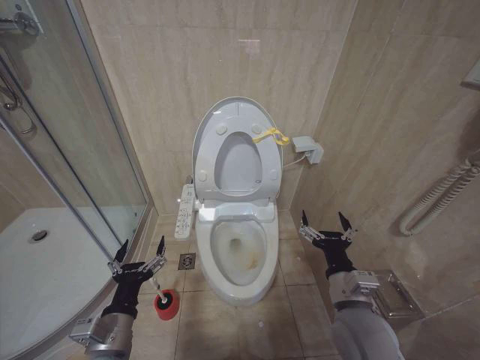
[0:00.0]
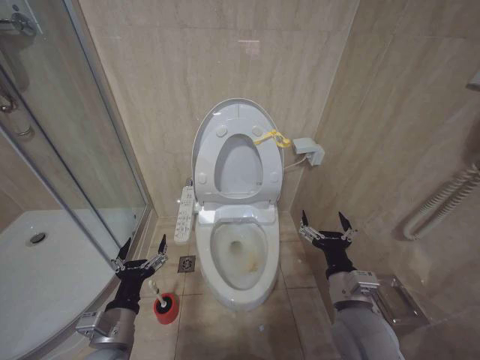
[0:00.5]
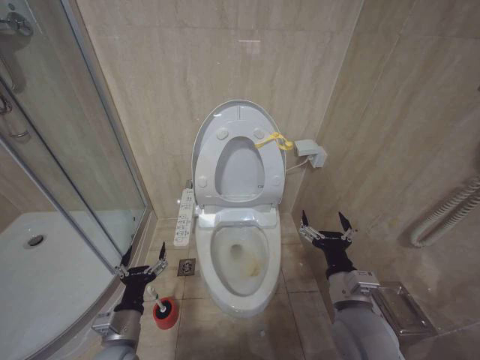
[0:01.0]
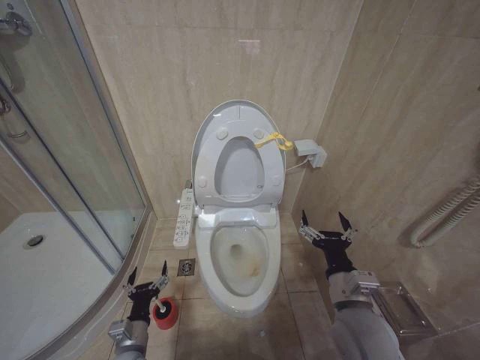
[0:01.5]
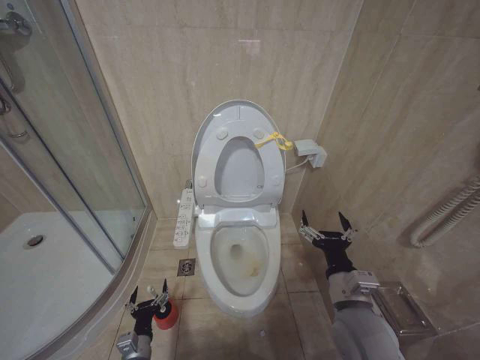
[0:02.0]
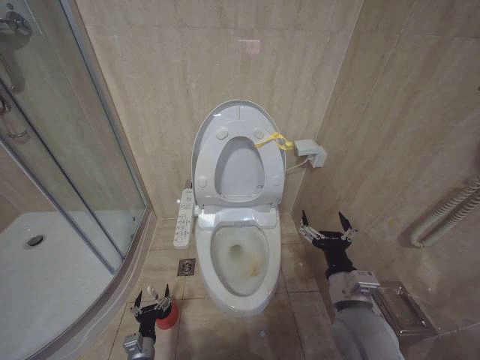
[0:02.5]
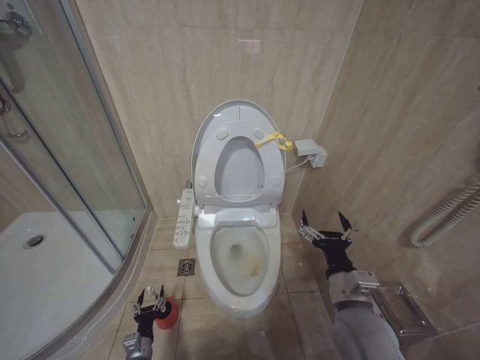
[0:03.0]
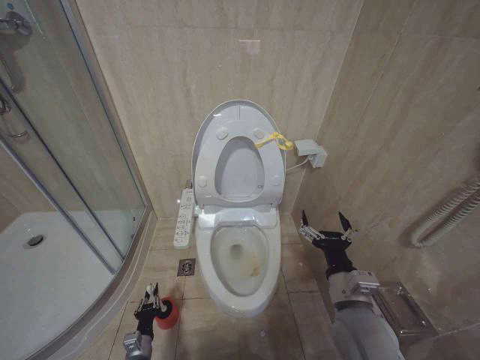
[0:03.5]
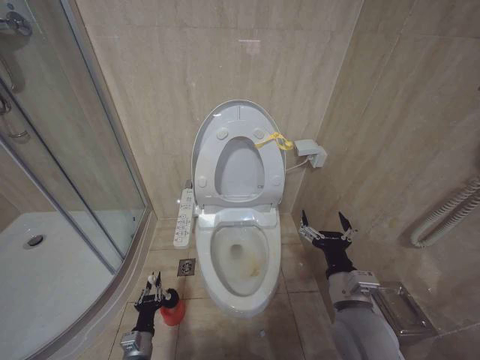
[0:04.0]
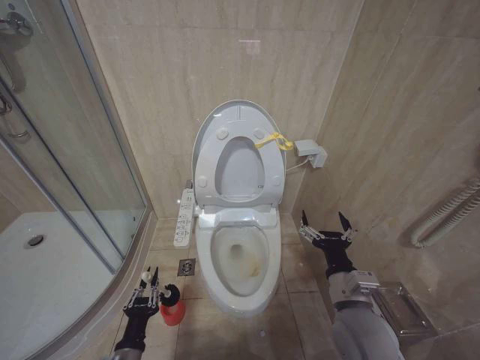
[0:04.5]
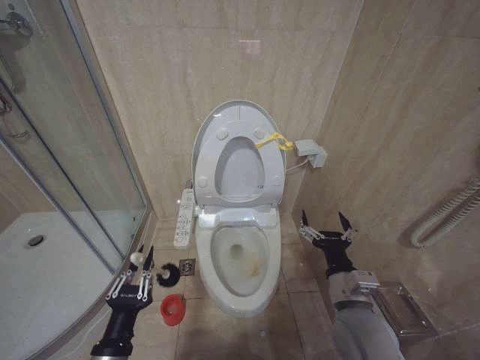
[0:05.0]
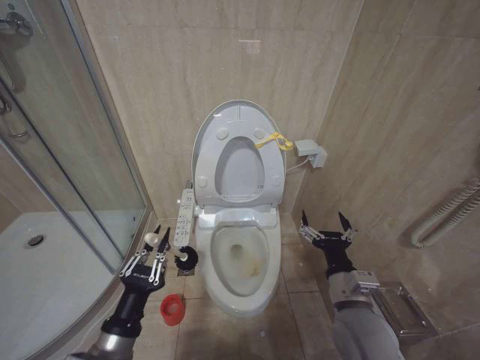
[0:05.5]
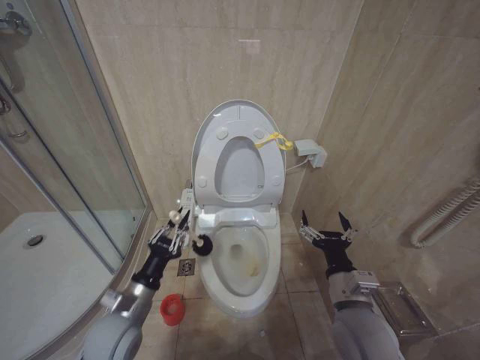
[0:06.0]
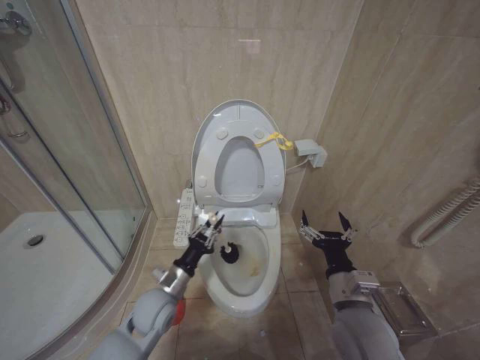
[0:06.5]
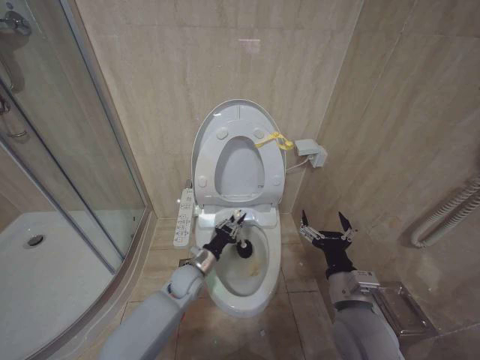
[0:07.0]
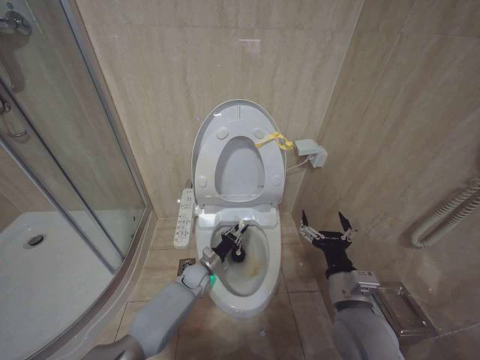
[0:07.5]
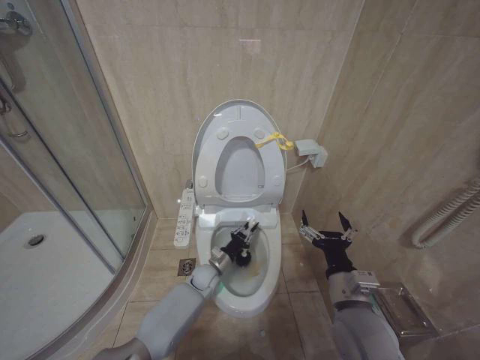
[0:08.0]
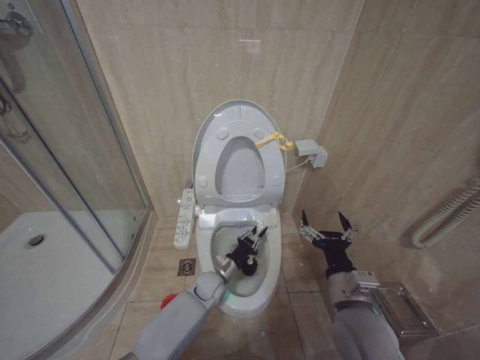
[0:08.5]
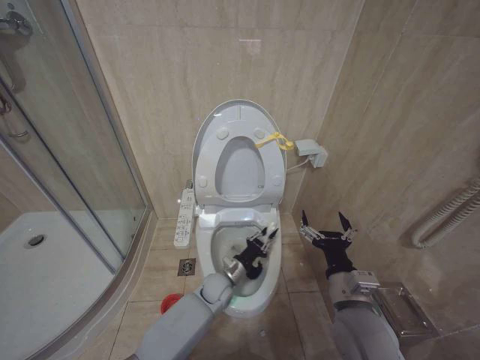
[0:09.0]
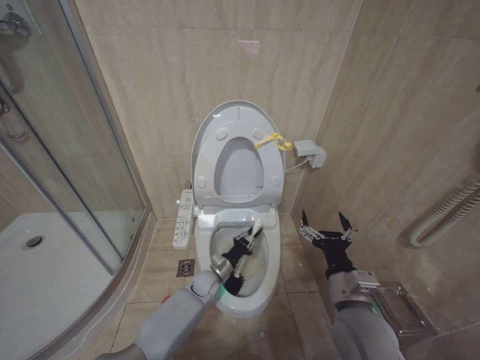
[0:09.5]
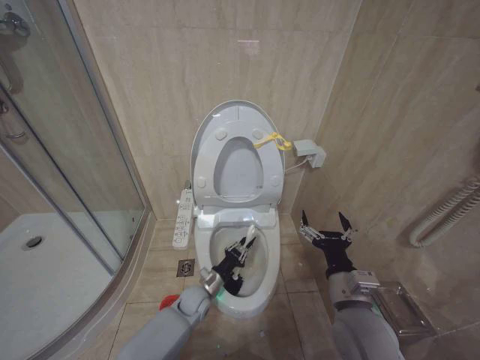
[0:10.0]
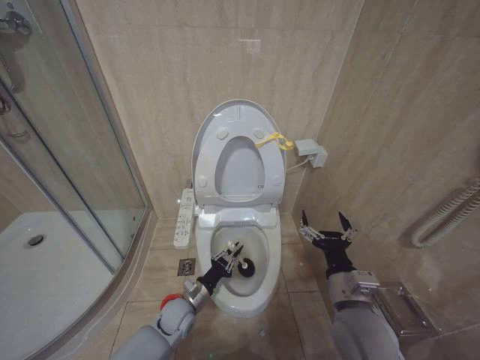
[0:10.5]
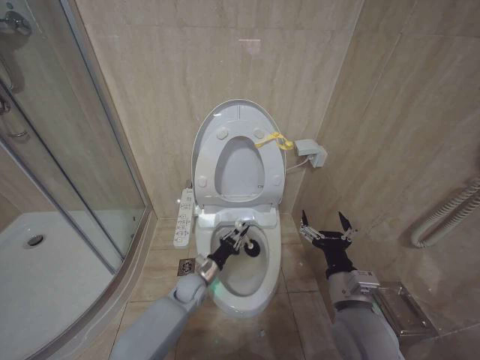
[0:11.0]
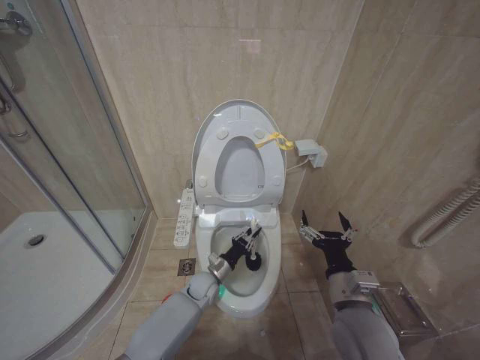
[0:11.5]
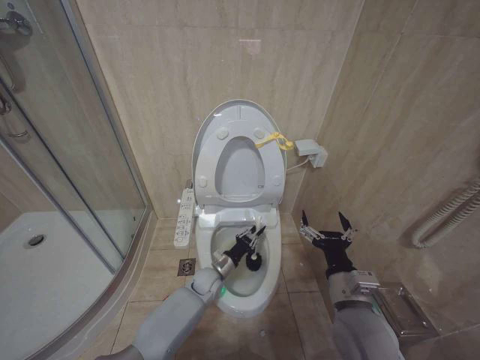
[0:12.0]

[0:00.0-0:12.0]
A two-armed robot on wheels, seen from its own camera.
Task of the whole recording: Open the toilet lid, clean the toilet bowl with a toilet brush, close the toilet lid, and flush.
0:00.0 to 0:02.0: The left gripper is displaced downward by roughly 20 cm.
0:02.0 to 0:04.0: The left gripper closes its fingers.
0:04.0 to 0:06.0: The left gripper shifts about 25 cm upward.
0:06.0 to 0:08.0: The left gripper is displaced forward, downward and to the right by roughly 30 cm.
0:08.0 to 0:10.0: The left gripper shifts some 5 cm backward.

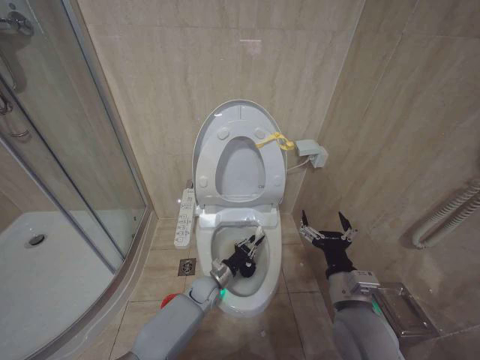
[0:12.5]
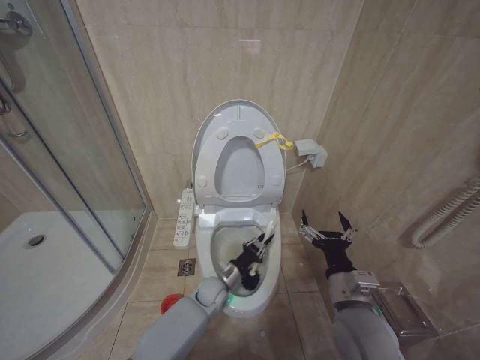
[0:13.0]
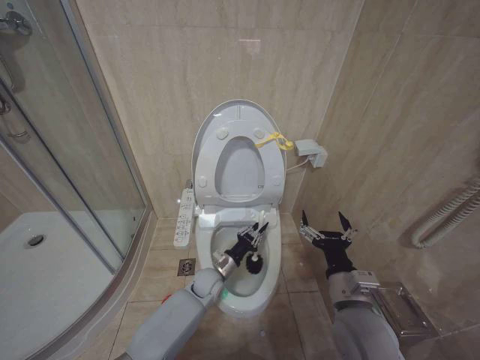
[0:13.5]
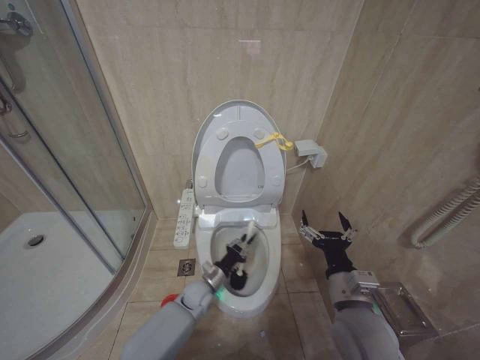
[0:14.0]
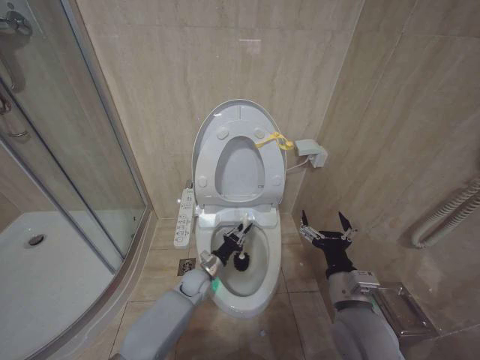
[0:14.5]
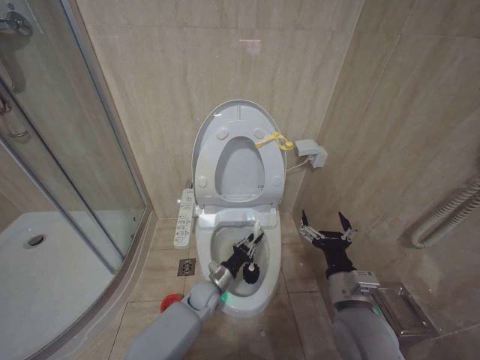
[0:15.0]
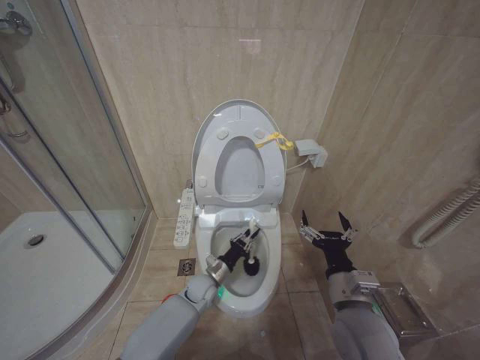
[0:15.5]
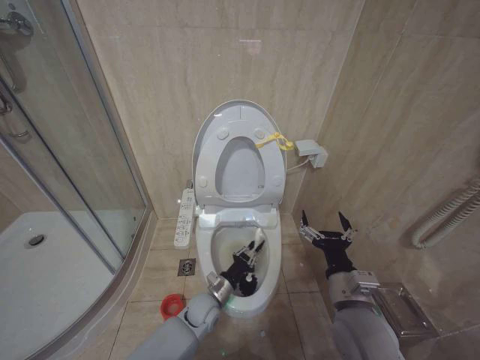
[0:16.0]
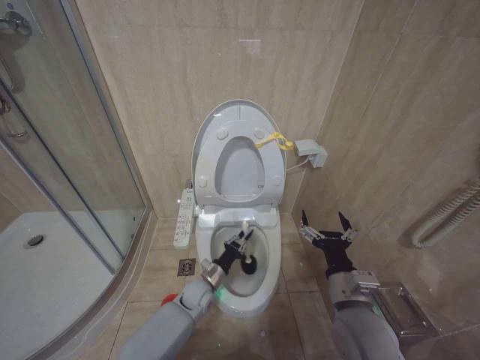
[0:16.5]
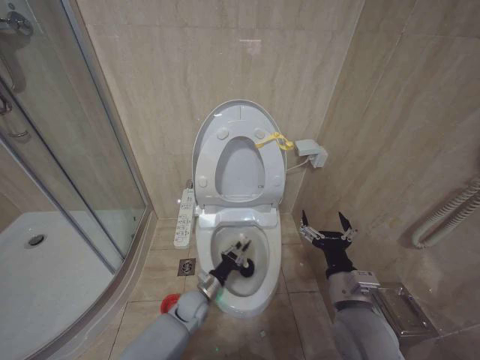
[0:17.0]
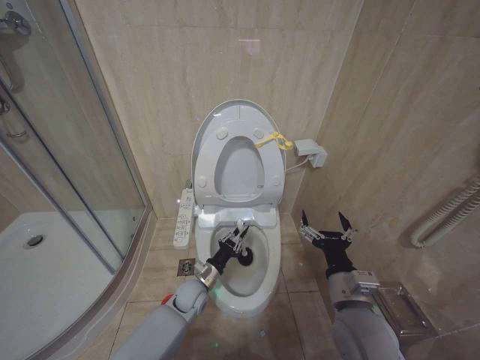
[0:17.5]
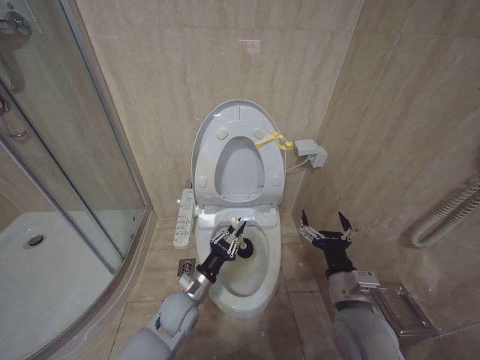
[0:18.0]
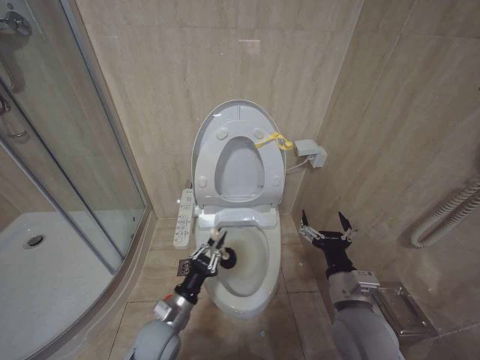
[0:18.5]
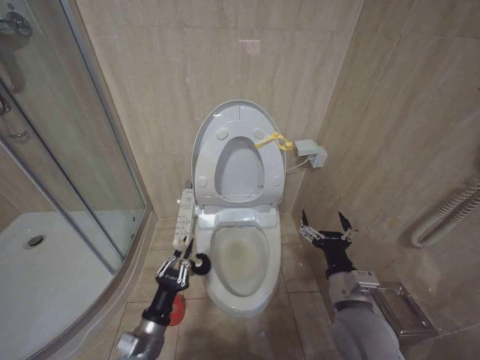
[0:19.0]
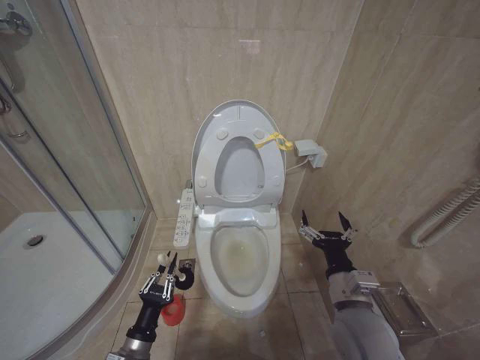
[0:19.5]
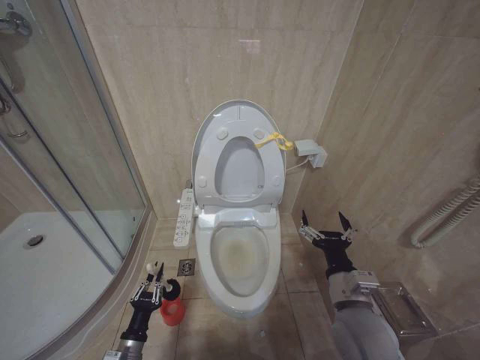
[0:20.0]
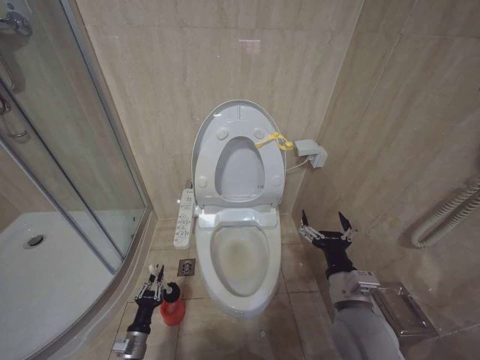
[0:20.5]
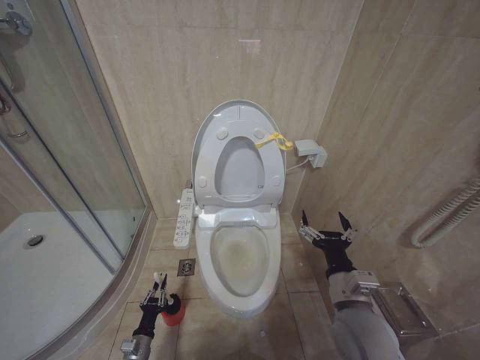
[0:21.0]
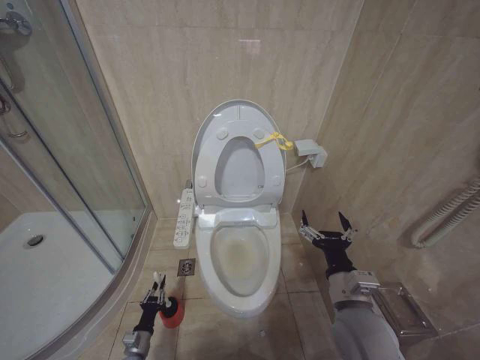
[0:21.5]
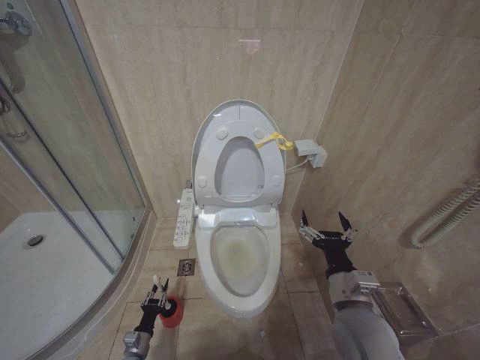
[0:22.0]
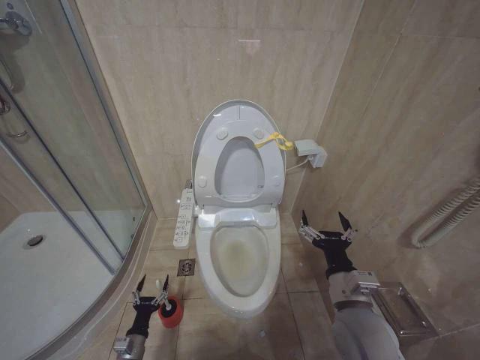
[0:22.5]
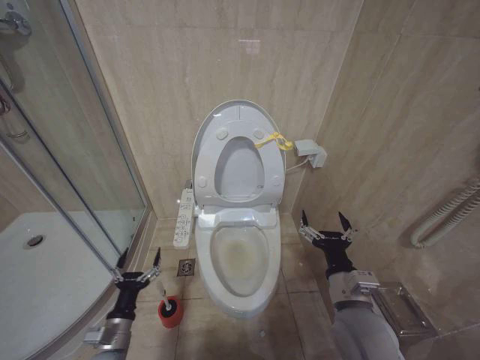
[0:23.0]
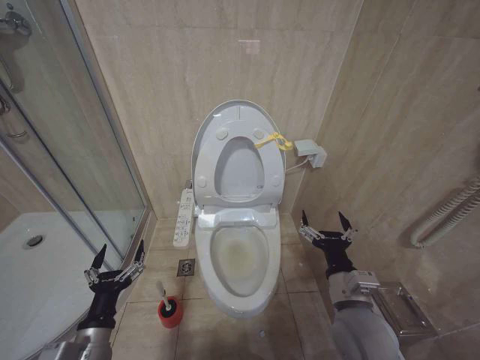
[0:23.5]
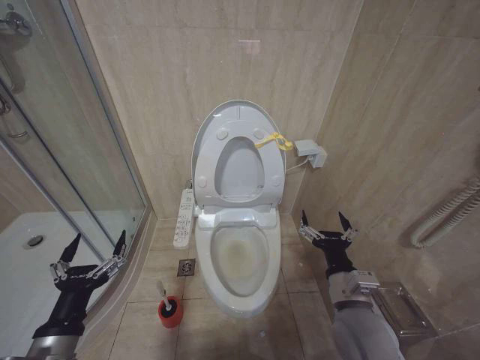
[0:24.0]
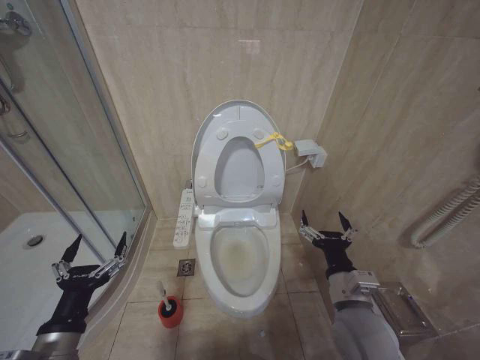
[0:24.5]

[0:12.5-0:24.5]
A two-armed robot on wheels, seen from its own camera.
Task of the whole recording: Open the toilet lid, clean the toilet bowl with a toilet brush, close the toilet lid, and flush.
0:14.5 to 0:16.5: The left gripper reaches about 10 cm backward, then returns.
0:16.5 to 0:18.5: The left gripper travels backward, upward and to the left by approximately 15 cm.
0:18.5 to 0:20.5: The left gripper is displaced downward and to the left by some 20 cm.
0:20.5 to 0:22.5: The left gripper moves downward, about 5 cm, and opens its fingers.
0:22.5 to 0:24.5: The left gripper shifts roughly 35 cm upward.

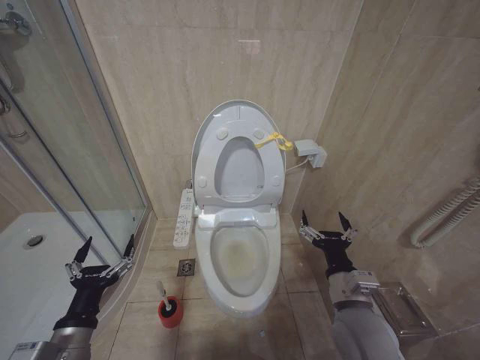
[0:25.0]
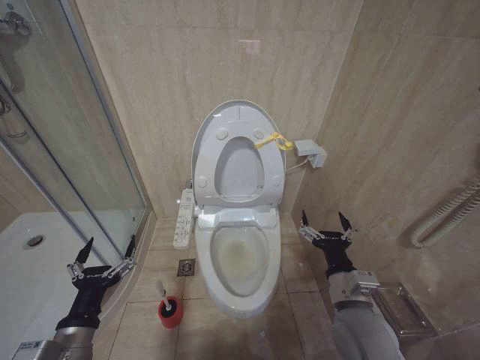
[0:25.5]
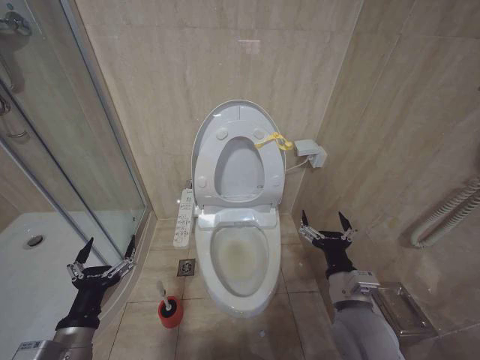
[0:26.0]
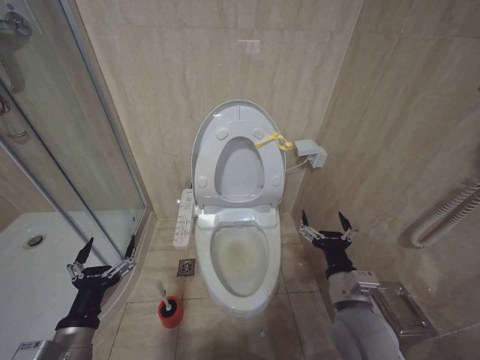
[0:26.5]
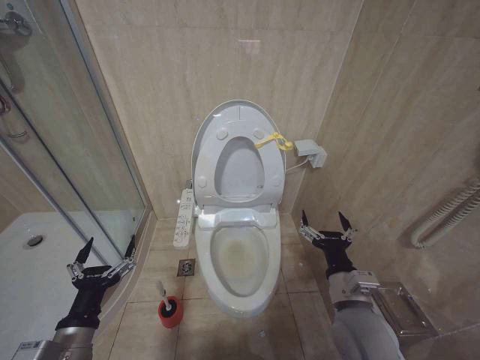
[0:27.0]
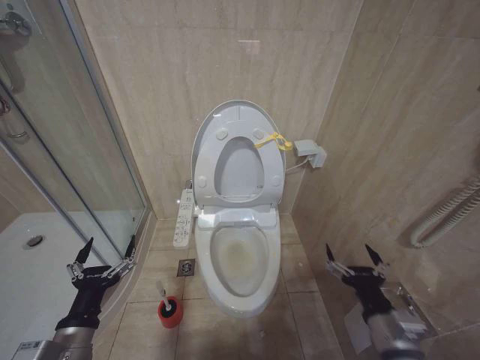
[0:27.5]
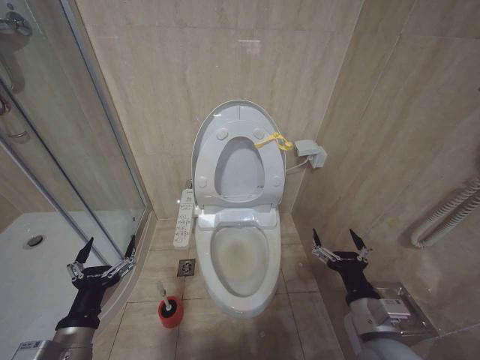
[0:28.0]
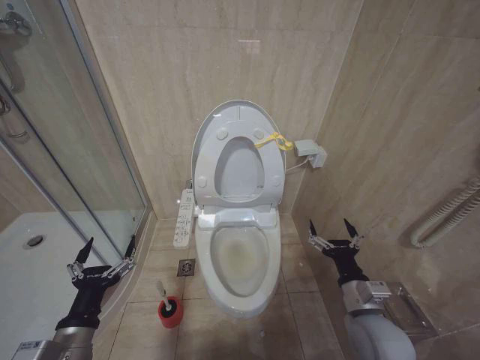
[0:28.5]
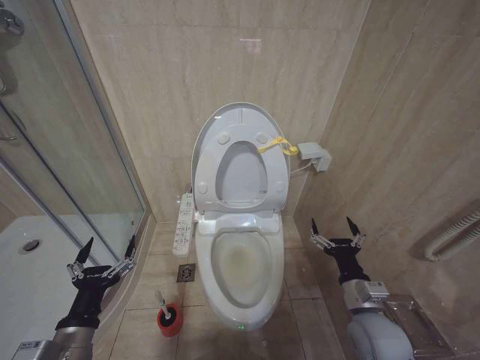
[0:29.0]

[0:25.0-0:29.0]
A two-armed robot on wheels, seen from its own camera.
Task of the whole recording: Open the toilet lid, clean the toilet bowl with a toilet brush, close the toilet lid, and flush.
0:25.0 to 0:27.0: Both grippers stay put.
0:27.0 to 0:29.0: The right gripper moves to the right and downward, approximately 10 cm.
